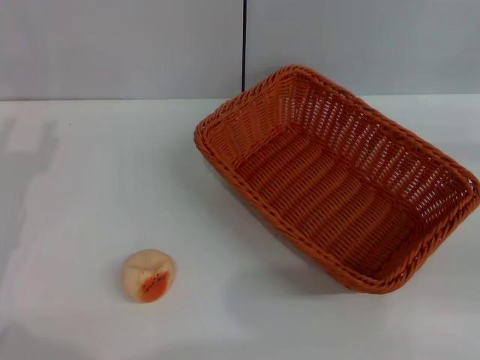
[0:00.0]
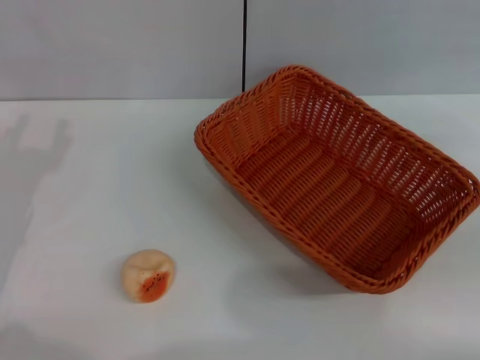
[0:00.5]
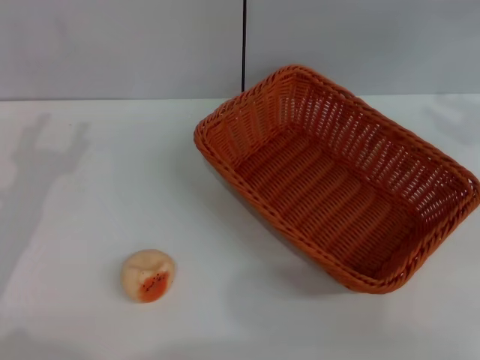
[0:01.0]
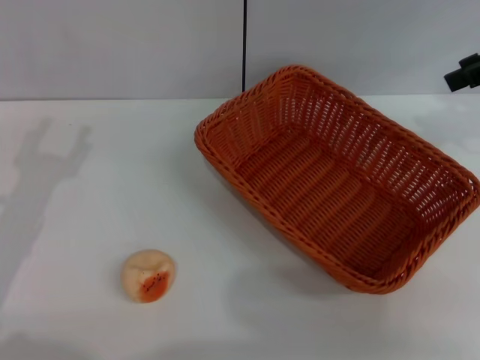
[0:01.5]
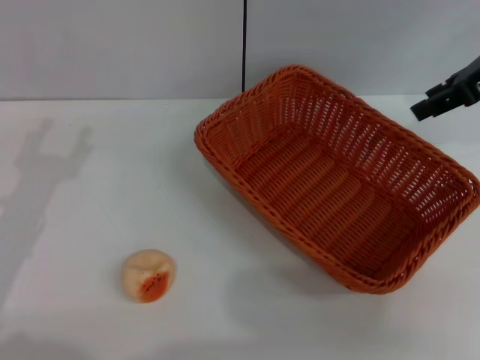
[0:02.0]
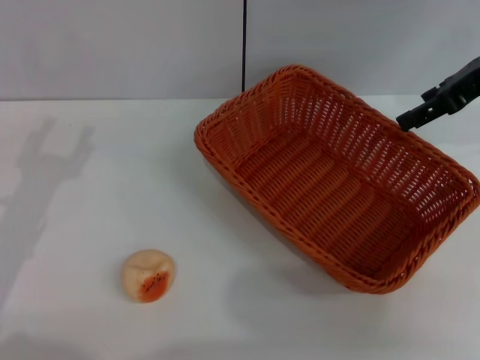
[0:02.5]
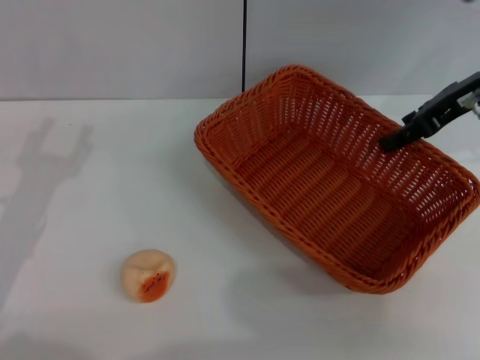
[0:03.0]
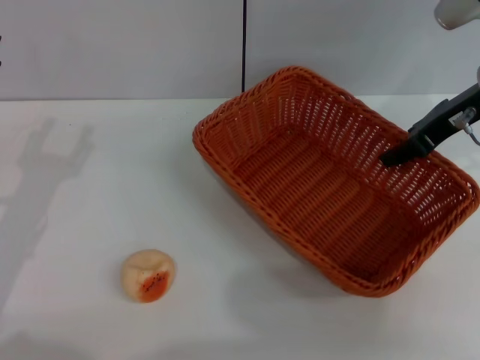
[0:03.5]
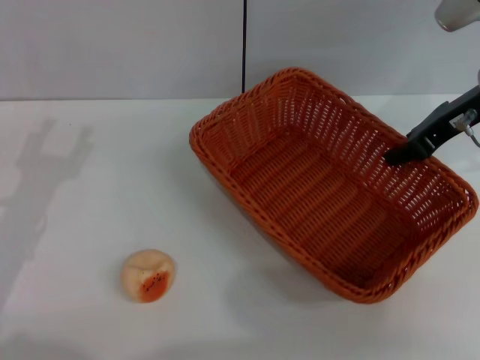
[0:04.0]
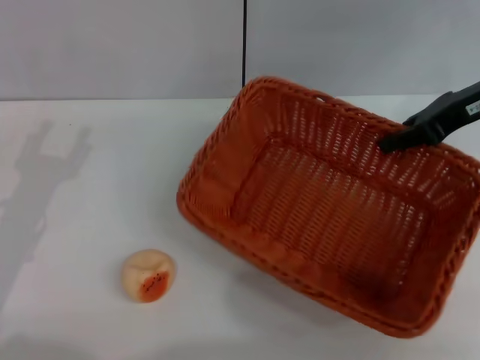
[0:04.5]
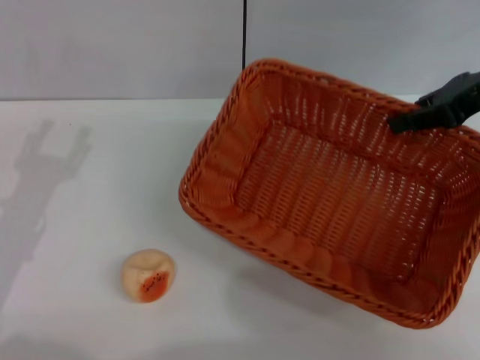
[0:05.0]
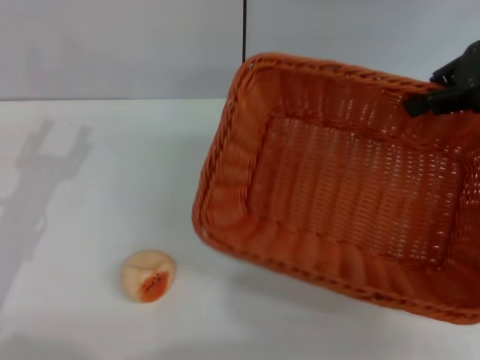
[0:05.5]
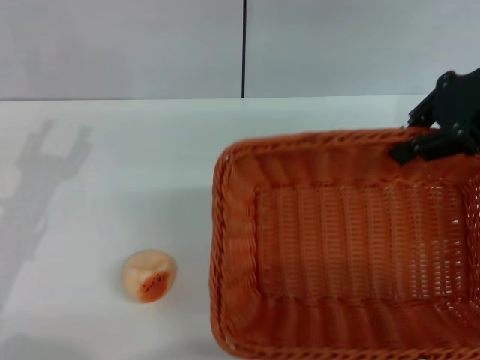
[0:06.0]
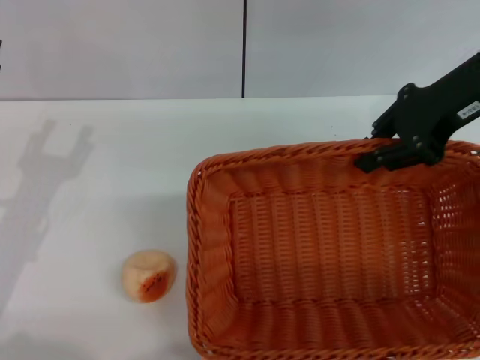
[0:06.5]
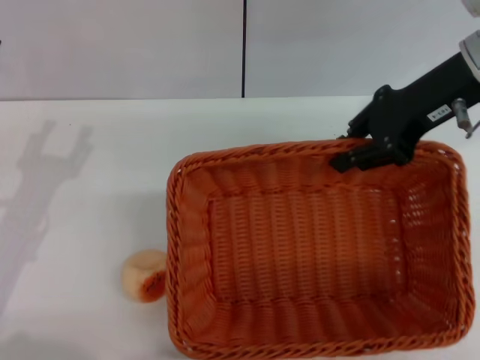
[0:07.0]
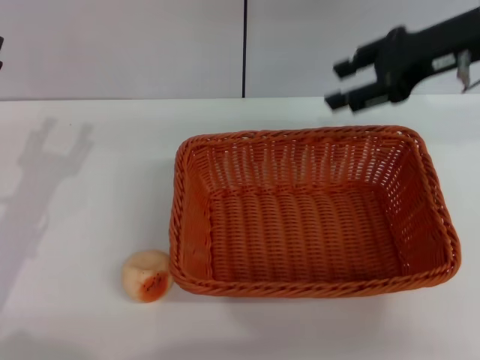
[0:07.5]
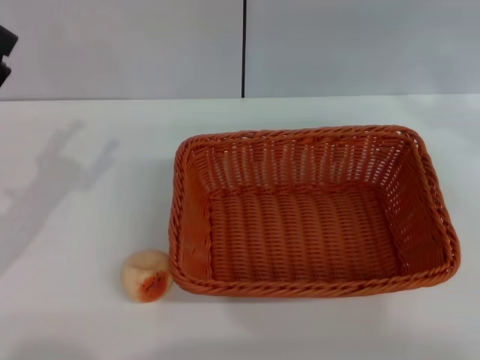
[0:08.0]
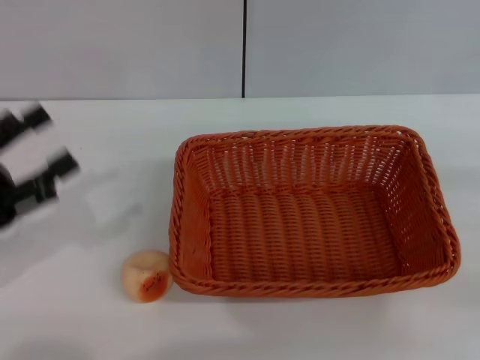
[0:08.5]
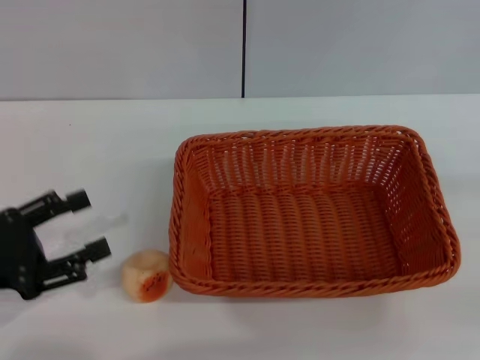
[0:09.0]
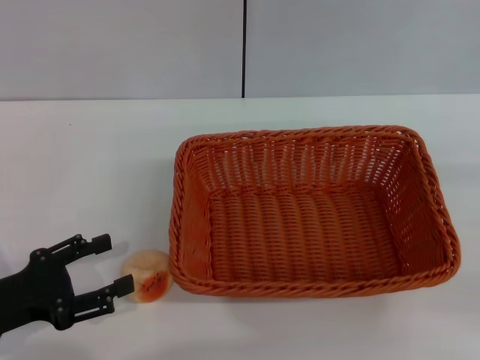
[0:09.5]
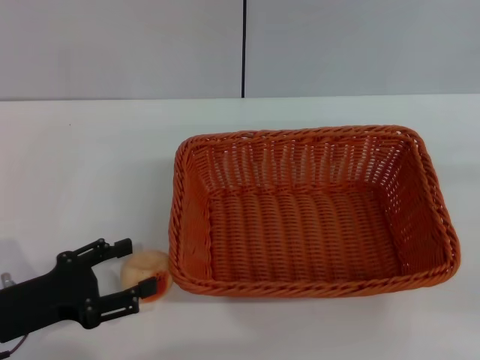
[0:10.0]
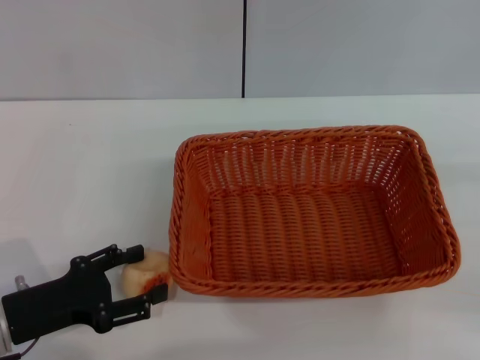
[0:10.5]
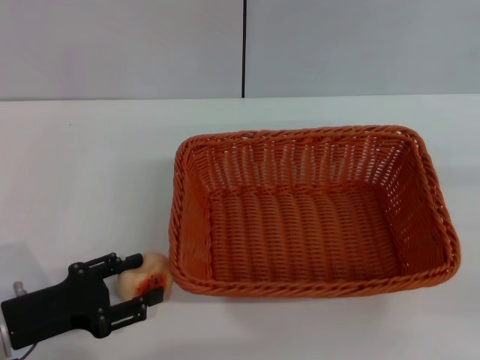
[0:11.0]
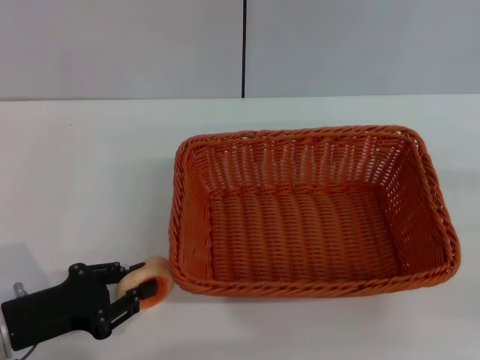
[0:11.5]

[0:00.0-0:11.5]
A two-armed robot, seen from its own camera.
Step, 0:00.0 to 0:07.5: Move the basket to the center of view with the right gripper.
0:00.0 to 0:02.0: The right gripper moves upward, forward and to the left, about 25 cm.
0:02.0 to 0:04.0: The right gripper shifts roughly 5 cm downward, and closes its fingers.
0:04.0 to 0:06.0: The right gripper heads upward, covering about 10 cm.
0:06.0 to 0:07.5: The right gripper opens.
0:07.5 to 0:09.5: The right gripper shifts approximately 30 cm to the right, backward and downward. The left gripper shifts about 5 cm backward.
0:09.5 to 0:11.5: The left gripper closes up.

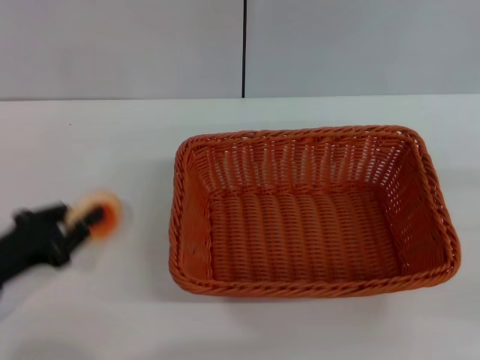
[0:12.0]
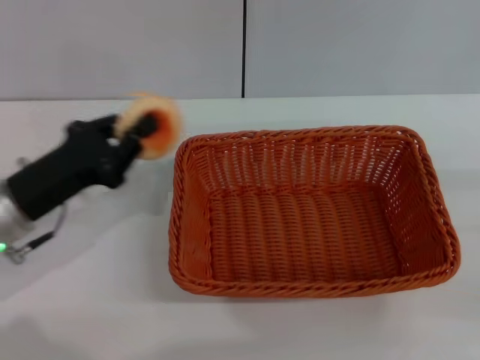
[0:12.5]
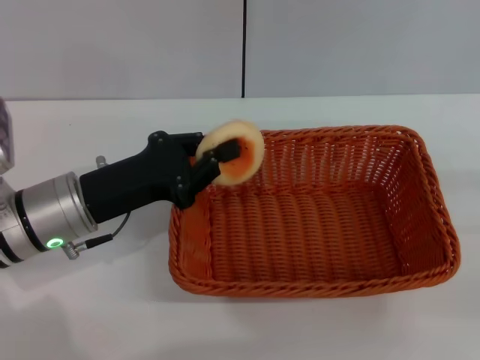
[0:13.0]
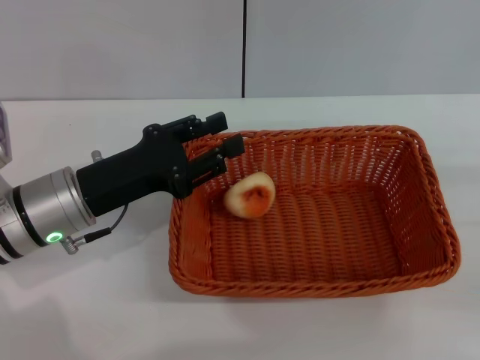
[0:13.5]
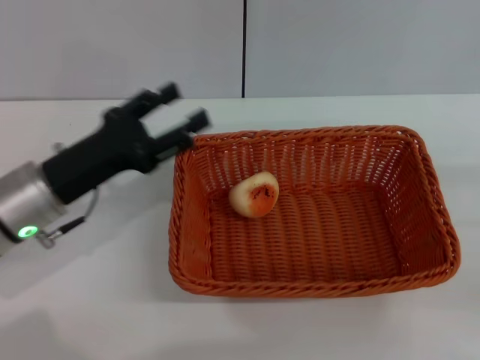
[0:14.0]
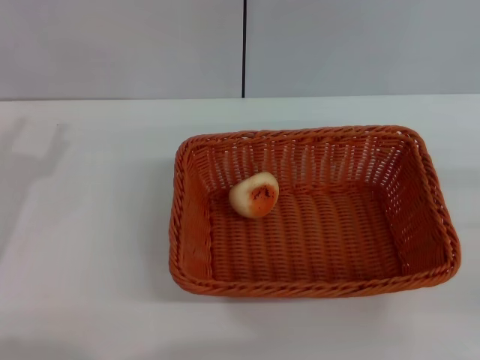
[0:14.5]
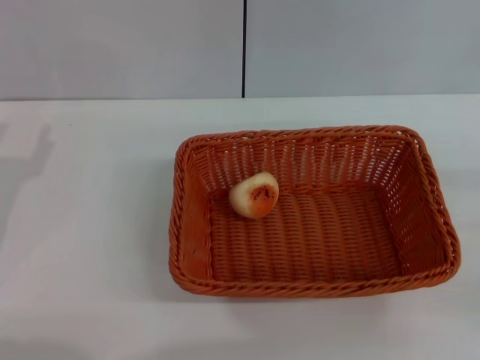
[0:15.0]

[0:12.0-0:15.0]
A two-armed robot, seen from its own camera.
Step, 0:12.5 to 0:13.5: Place the egg yolk pastry into the basket with the left gripper.
0:12.0 to 0:13.5: The left gripper is displaced to the right and forward by about 15 cm.
0:13.5 to 0:15.0: The left gripper is displaced to the left and backward by some 10 cm, and opens its fingers.

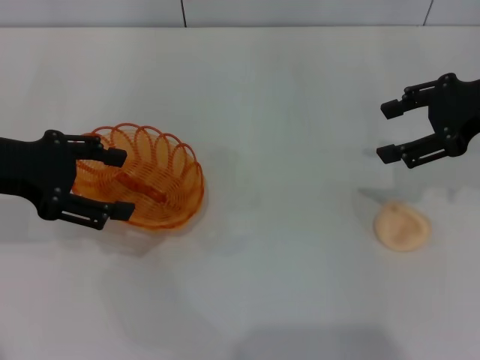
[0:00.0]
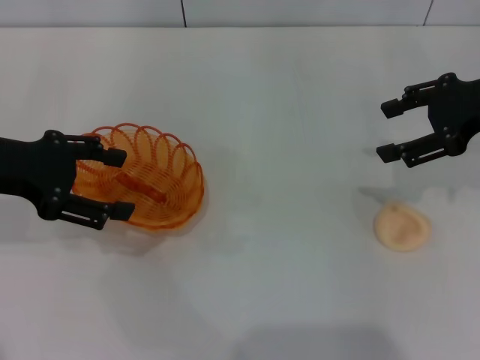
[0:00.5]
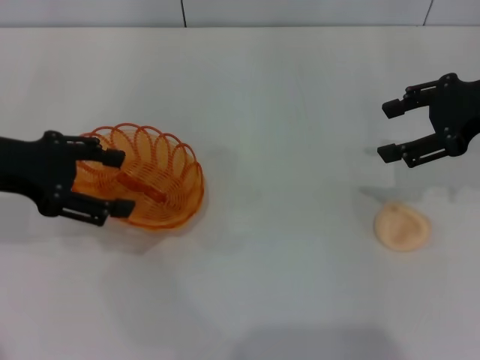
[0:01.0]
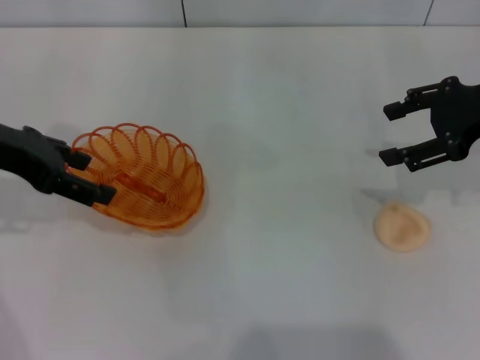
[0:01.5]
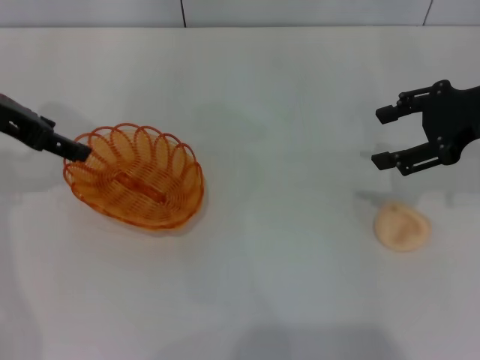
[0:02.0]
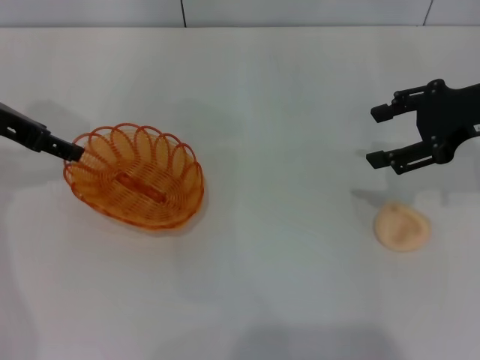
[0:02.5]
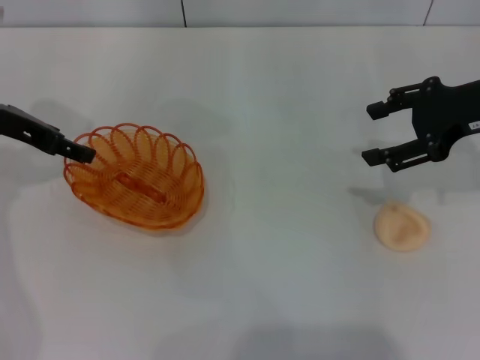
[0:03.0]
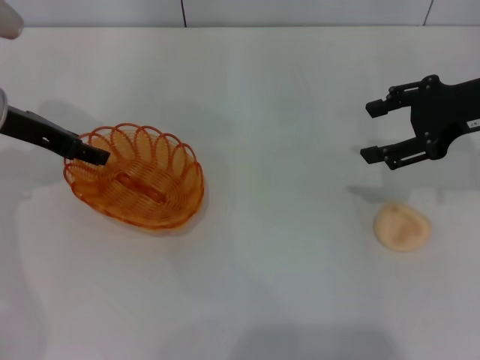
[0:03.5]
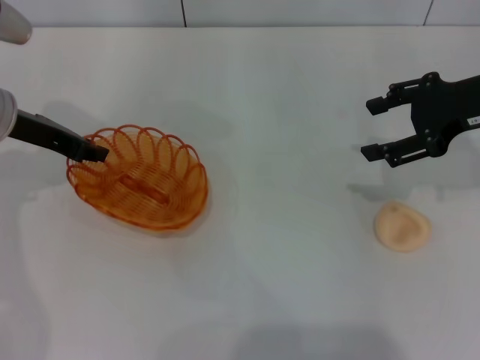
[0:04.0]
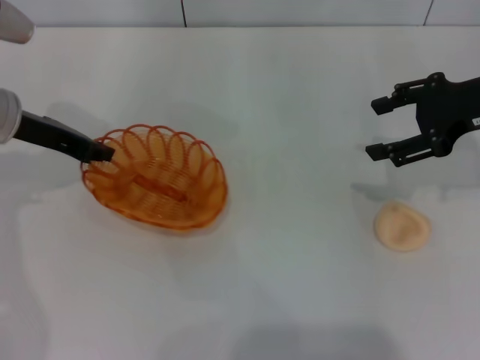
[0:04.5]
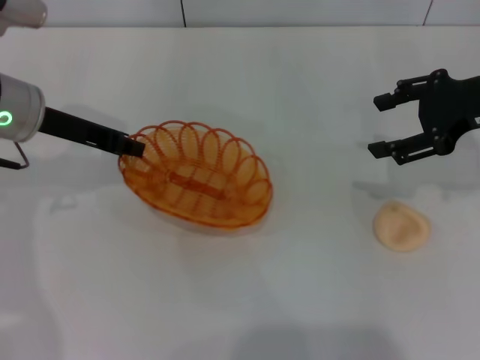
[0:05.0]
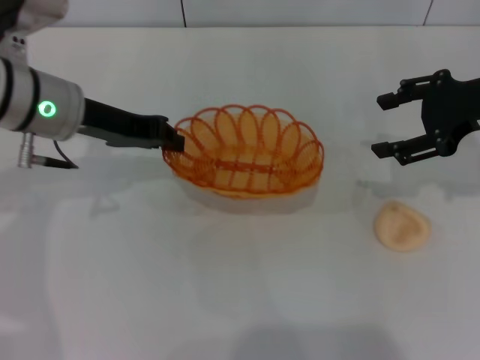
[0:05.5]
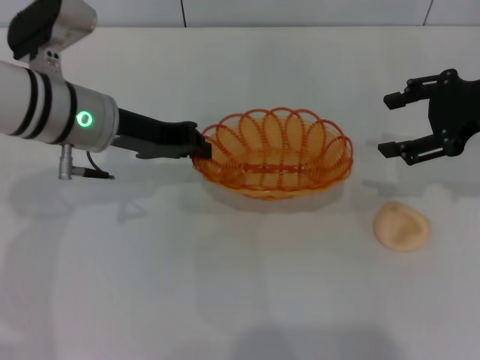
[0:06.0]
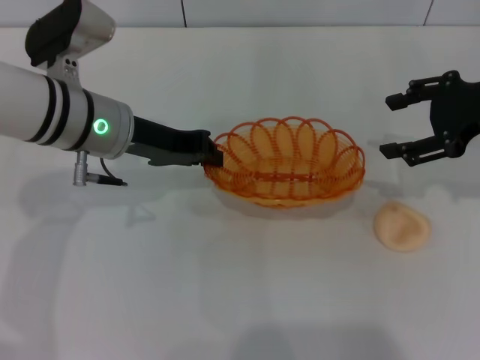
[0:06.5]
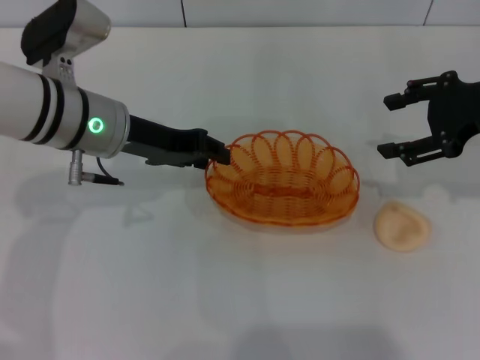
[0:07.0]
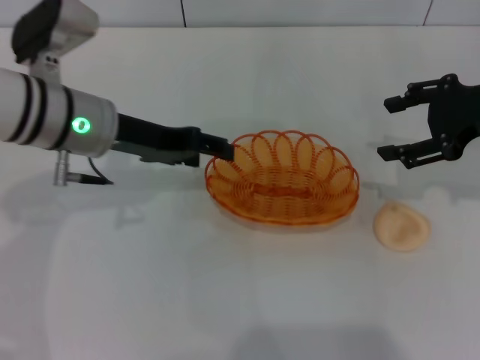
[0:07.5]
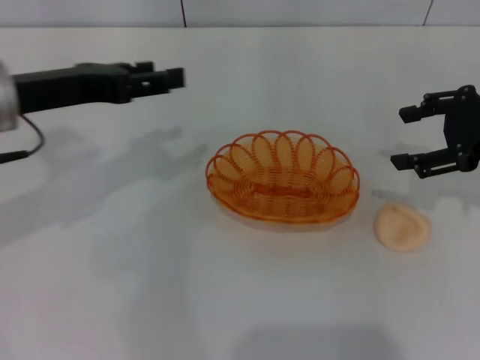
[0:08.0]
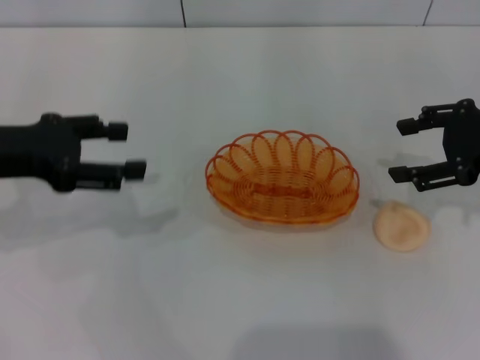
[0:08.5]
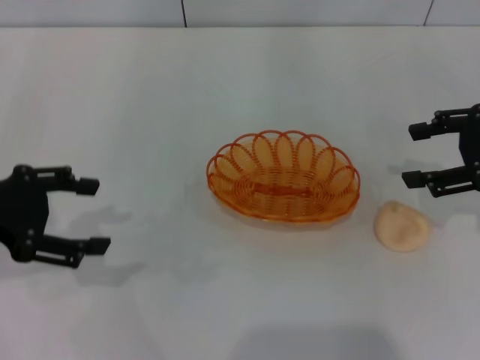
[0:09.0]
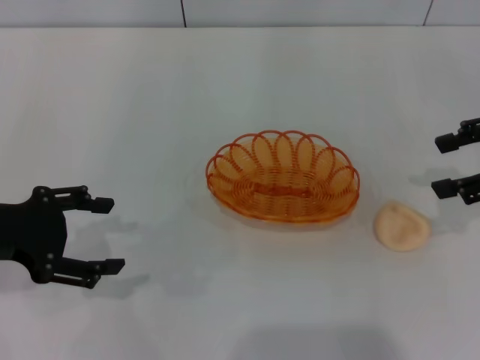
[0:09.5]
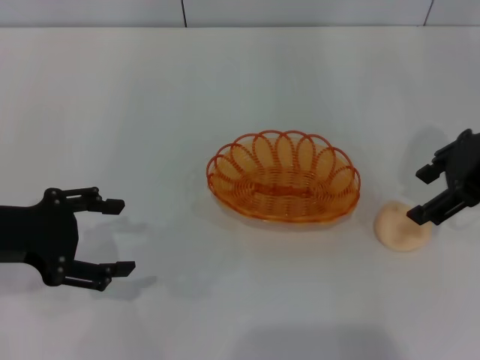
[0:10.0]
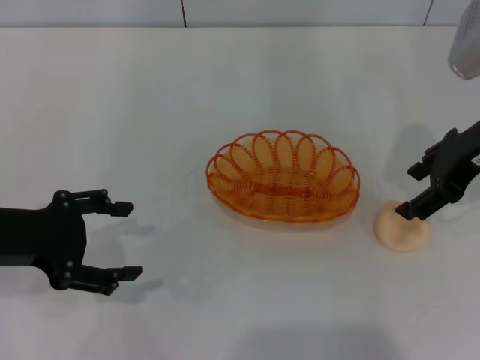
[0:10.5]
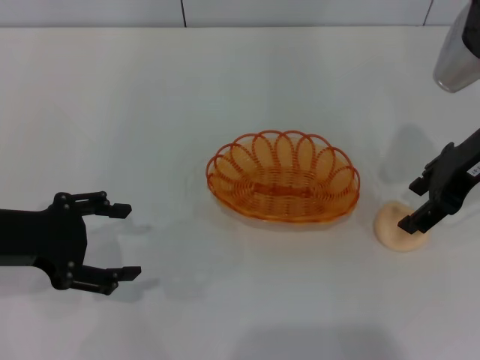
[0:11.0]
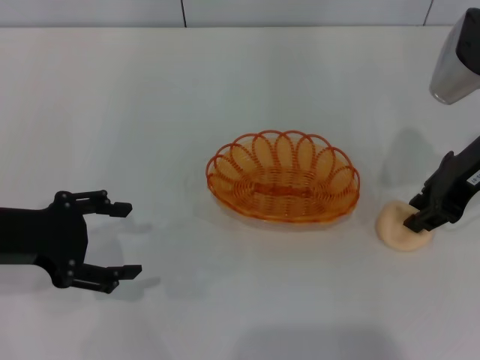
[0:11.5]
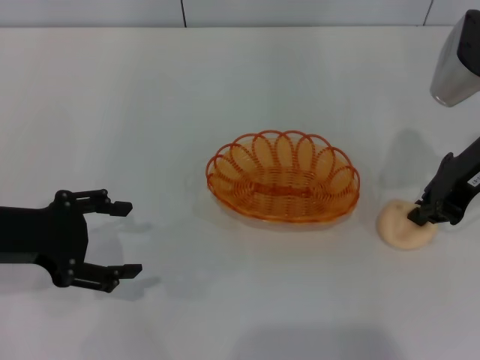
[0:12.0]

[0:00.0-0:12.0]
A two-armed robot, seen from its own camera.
Step, 0:00.0 to 0:05.0: Pick up the basket with the left gripper.
Step, 0:05.5 to 0:08.0: Place the basket in the center of view with the left gripper.
0:00.0 to 0:02.0: The left gripper goes some 5 cm forward.
0:02.0 to 0:04.0: The left gripper is displaced downward by some 5 cm, and closes.
0:04.0 to 0:06.0: The left gripper travels to the right by approximately 10 cm, and closes.
0:06.0 to 0:08.0: The left gripper shifts some 5 cm to the left, and opens.
0:08.0 to 0:10.0: The left gripper moves backward and to the left, approximately 10 cm, while the right gripper moves some 5 cm.
0:10.0 to 0:12.0: The right gripper closes.
